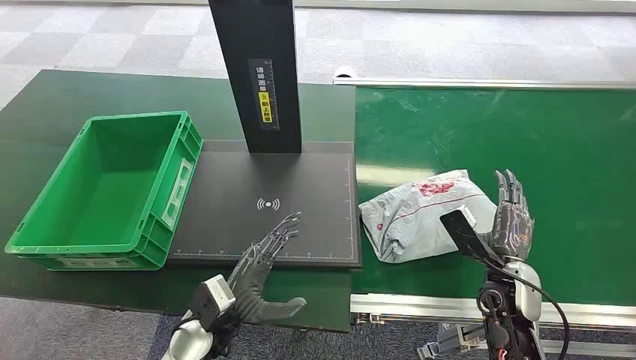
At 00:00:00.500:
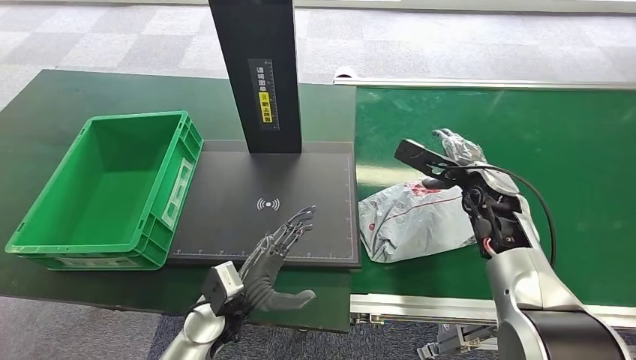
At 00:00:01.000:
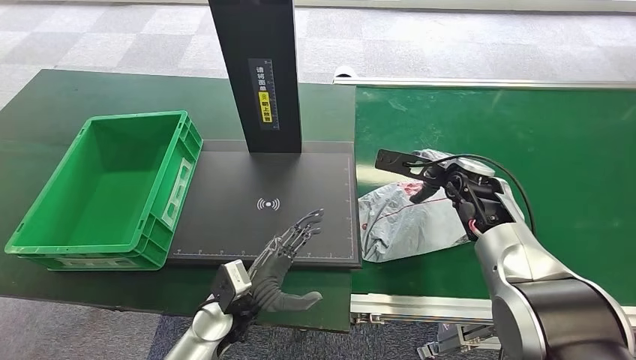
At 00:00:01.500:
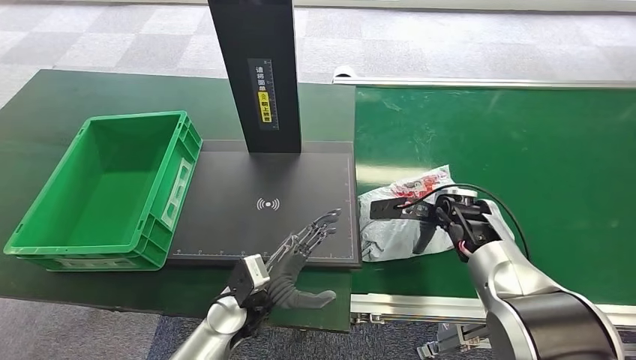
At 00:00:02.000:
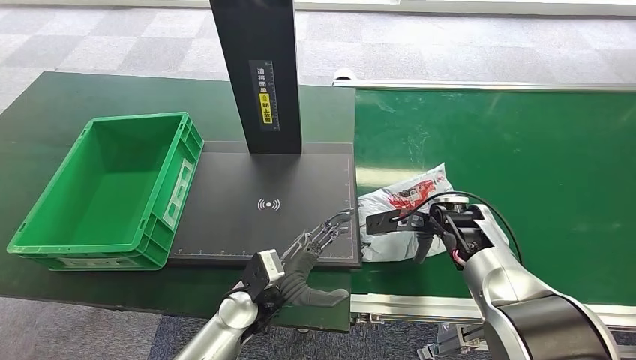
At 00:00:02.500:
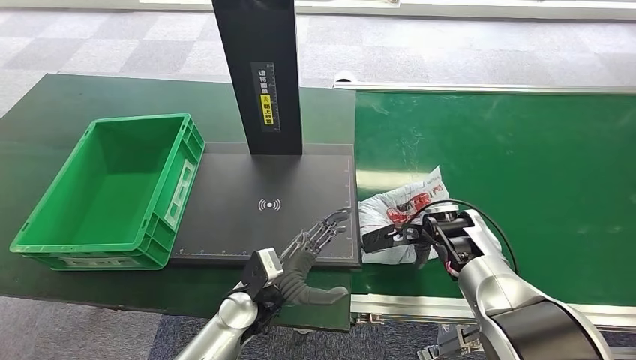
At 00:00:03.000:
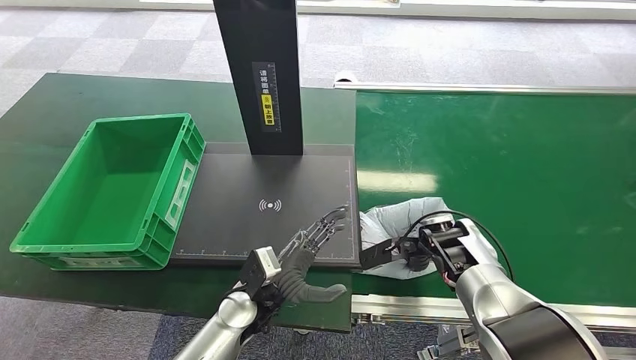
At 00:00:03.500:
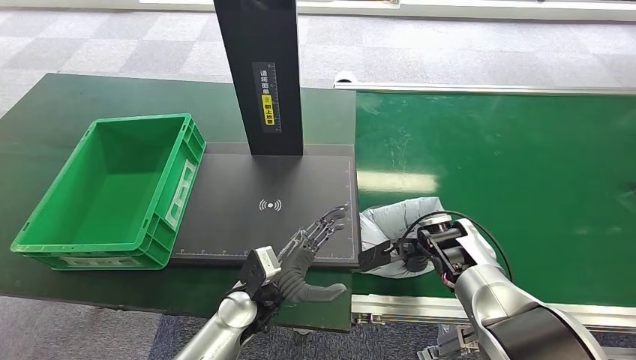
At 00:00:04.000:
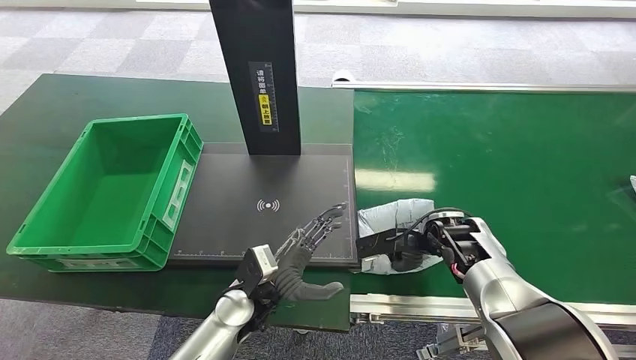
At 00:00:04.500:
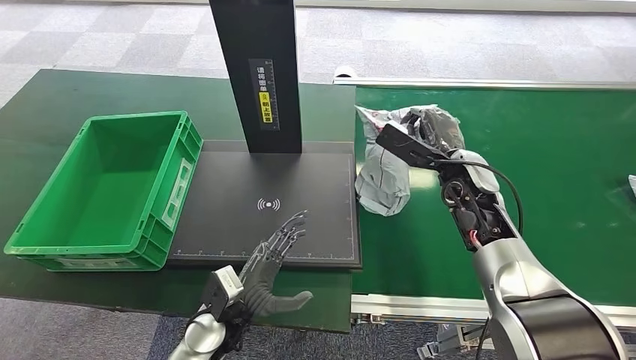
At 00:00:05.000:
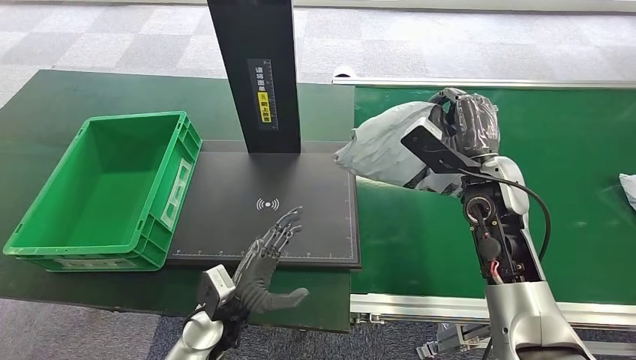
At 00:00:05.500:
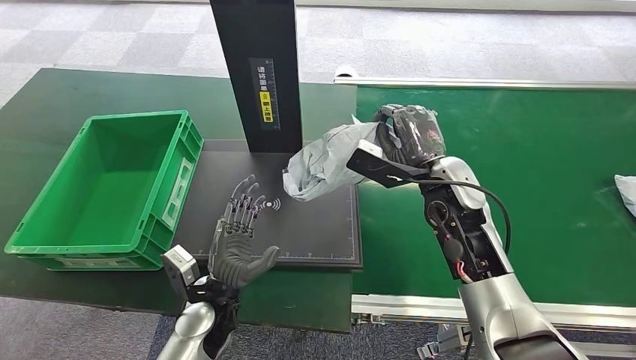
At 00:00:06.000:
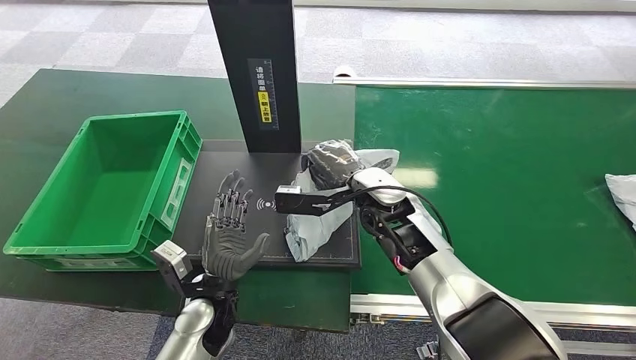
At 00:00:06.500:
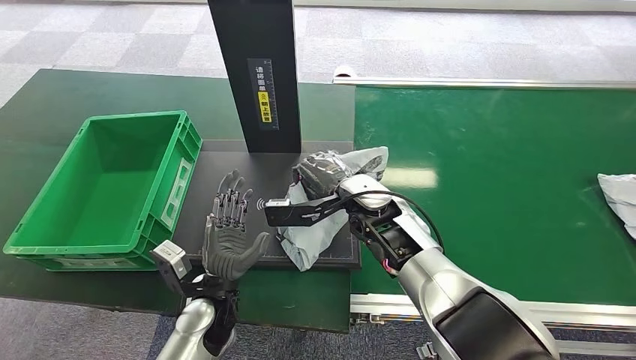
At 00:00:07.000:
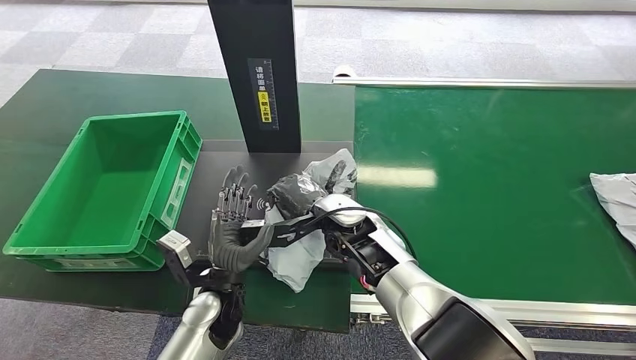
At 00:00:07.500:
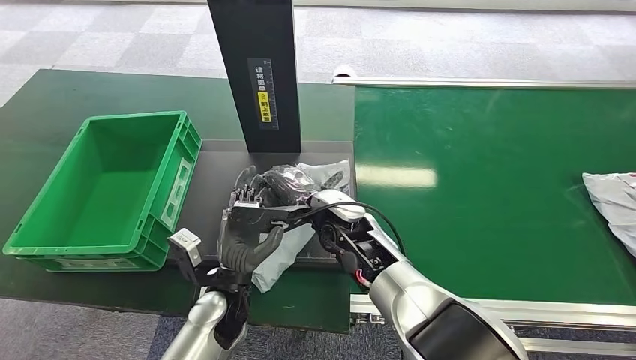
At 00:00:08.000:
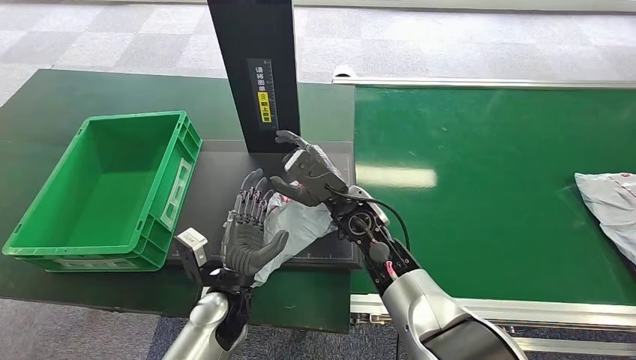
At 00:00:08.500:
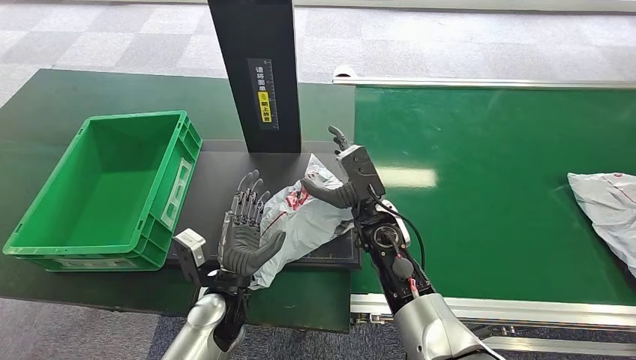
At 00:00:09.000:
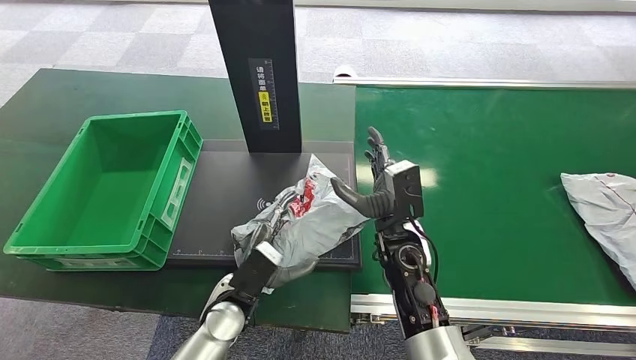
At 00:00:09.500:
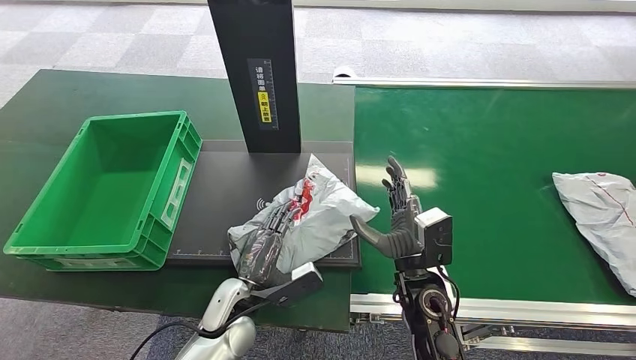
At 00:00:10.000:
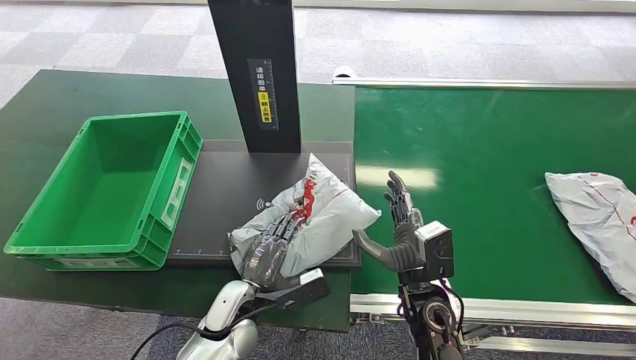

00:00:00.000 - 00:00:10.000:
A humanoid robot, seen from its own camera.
Step, 00:00:00.000 - 00:00:05.000: Pick up the package from the conveyor belt.
Step, 00:00:05.500 - 00:00:08.500: Place the package onto the inbound machine.
00:00:06.000 - 00:00:08.000: The right hand changes place by some 5 cm.
00:00:08.000 - 00:00:10.000: The right hand goes about 15 cm backward, to the right and downward.

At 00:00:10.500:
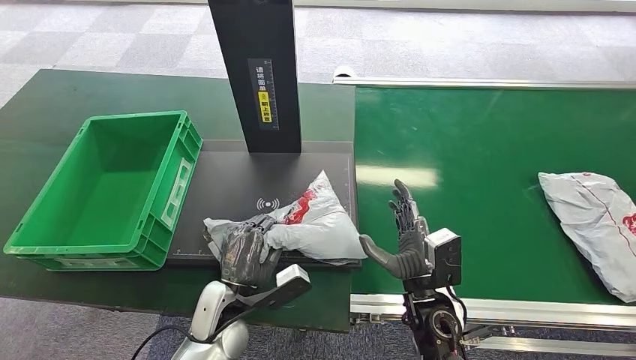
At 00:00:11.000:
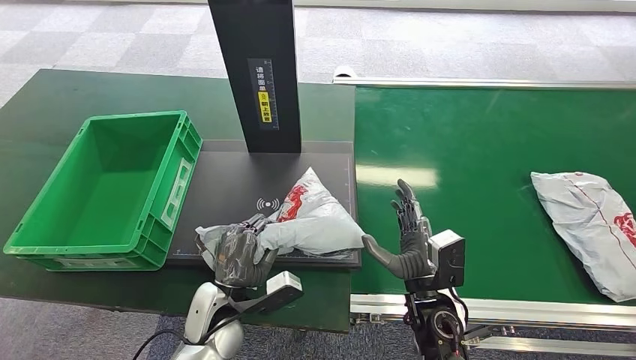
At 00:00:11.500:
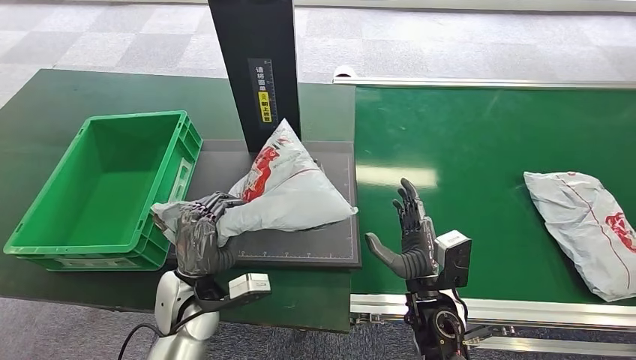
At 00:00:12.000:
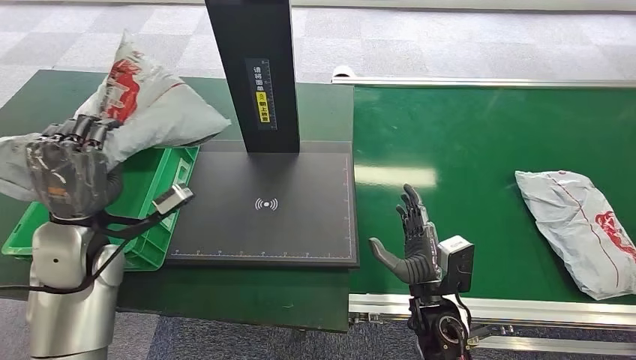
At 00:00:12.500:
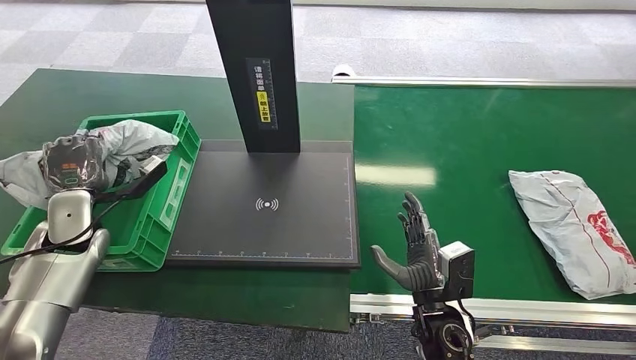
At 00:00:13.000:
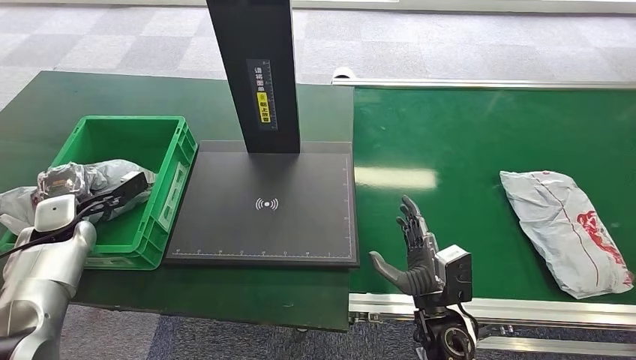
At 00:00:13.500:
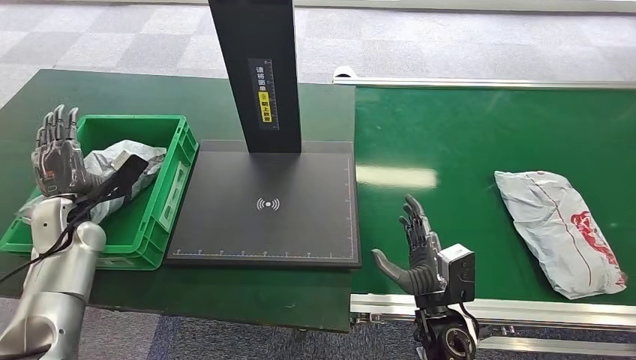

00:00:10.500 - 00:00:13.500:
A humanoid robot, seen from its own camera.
Step, 00:00:12.000 - 00:00:13.500: Place the package into the parcel locker.

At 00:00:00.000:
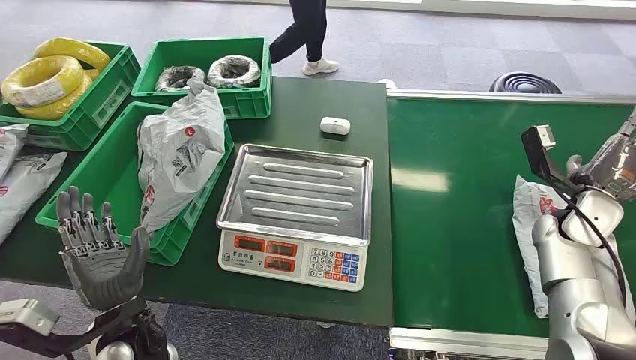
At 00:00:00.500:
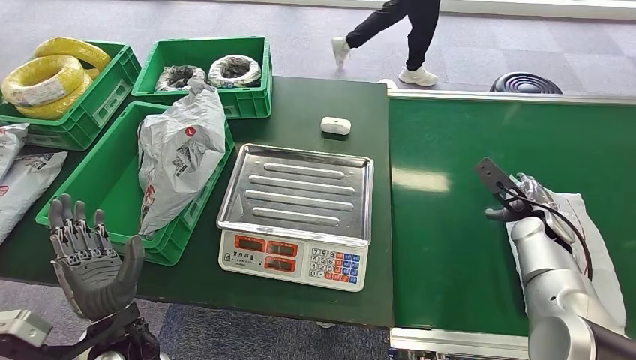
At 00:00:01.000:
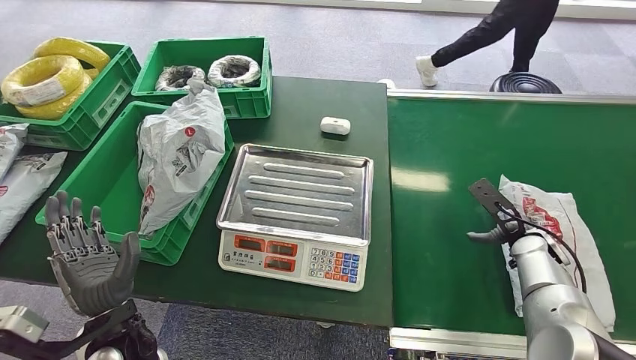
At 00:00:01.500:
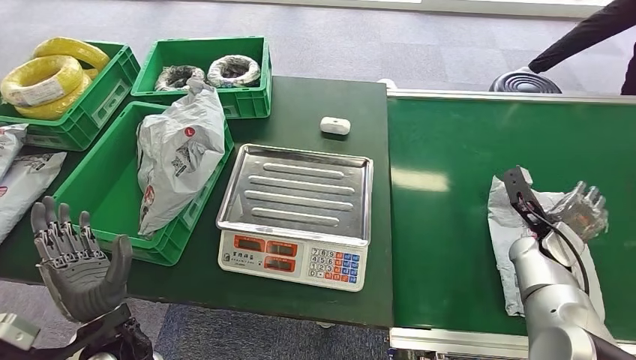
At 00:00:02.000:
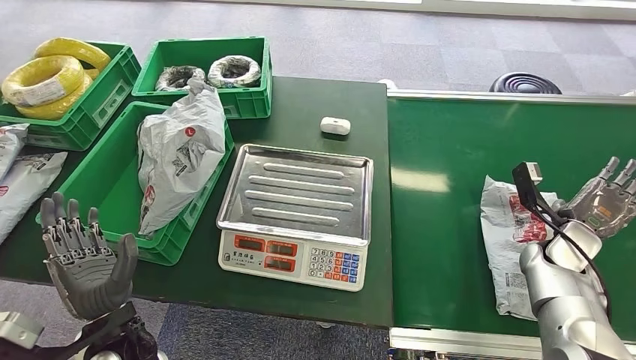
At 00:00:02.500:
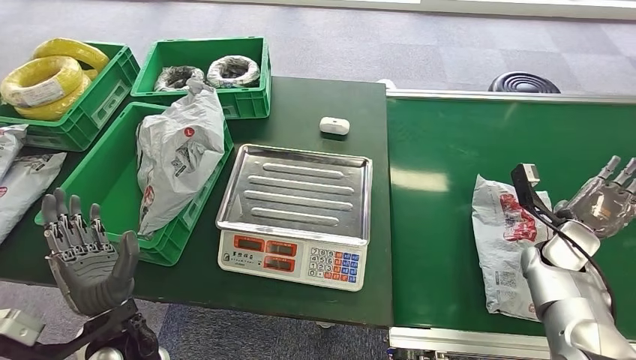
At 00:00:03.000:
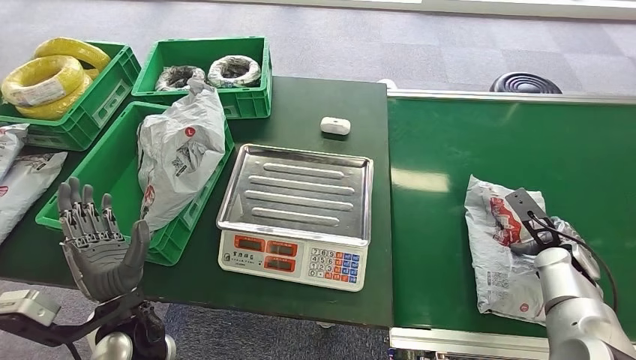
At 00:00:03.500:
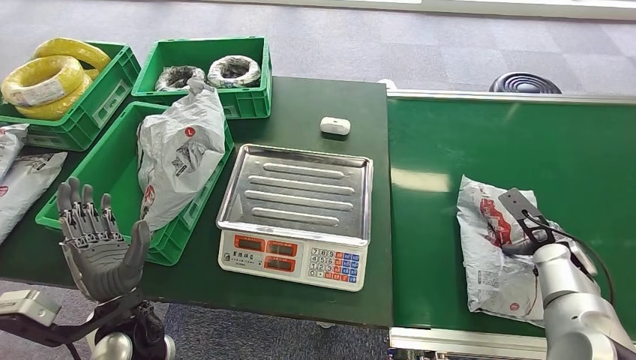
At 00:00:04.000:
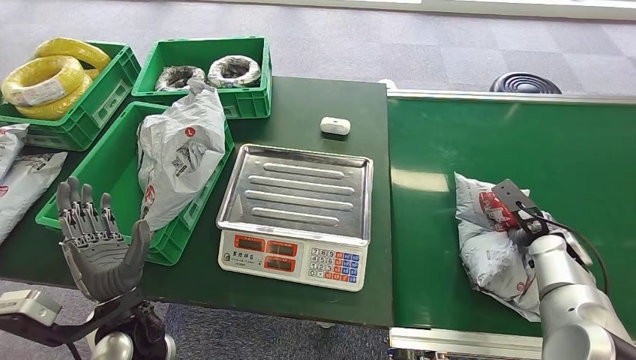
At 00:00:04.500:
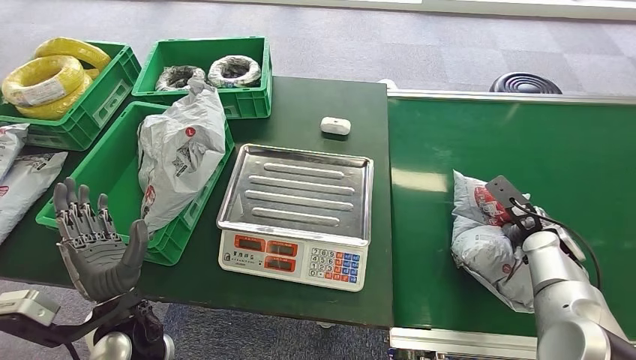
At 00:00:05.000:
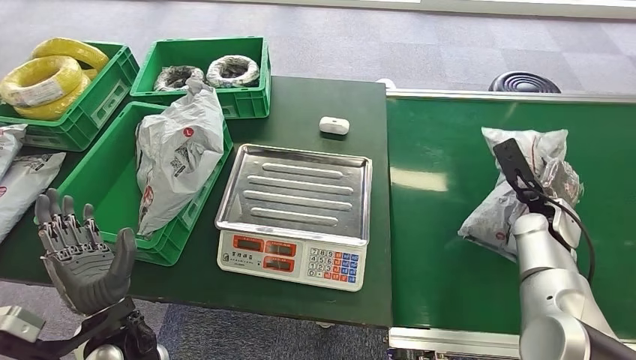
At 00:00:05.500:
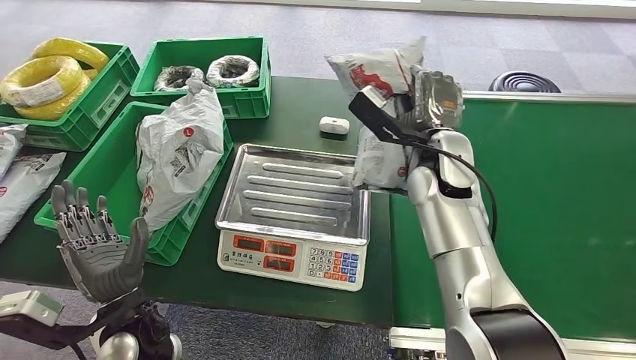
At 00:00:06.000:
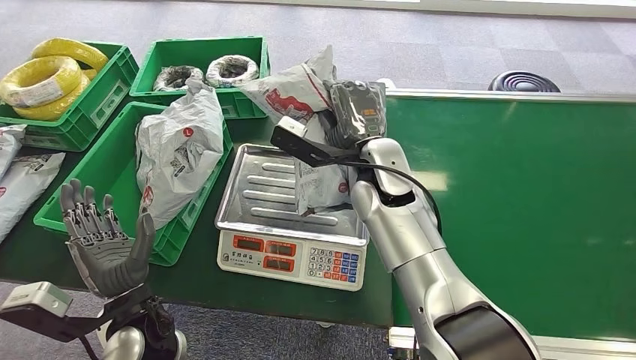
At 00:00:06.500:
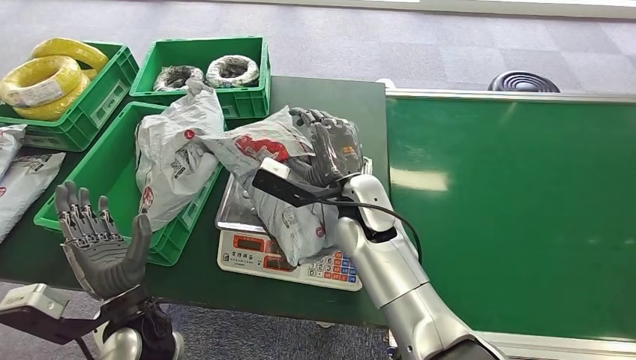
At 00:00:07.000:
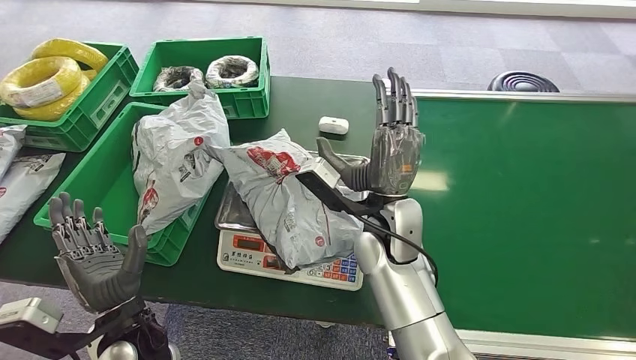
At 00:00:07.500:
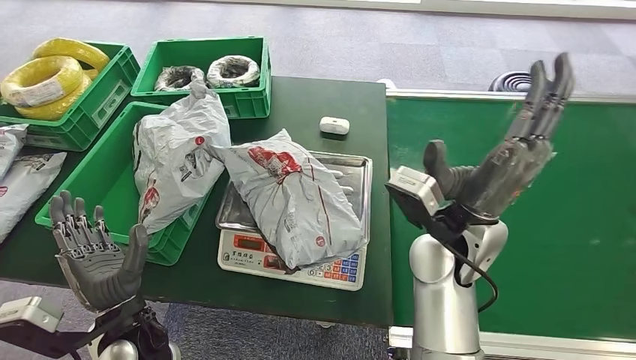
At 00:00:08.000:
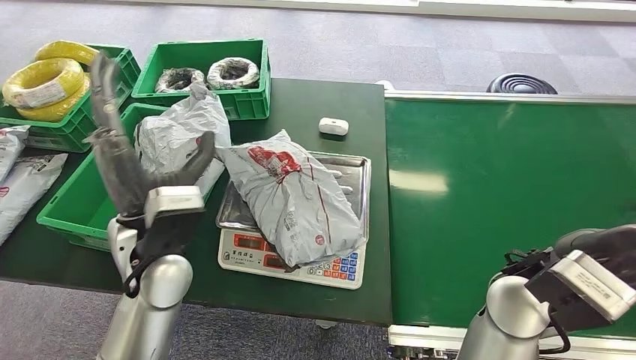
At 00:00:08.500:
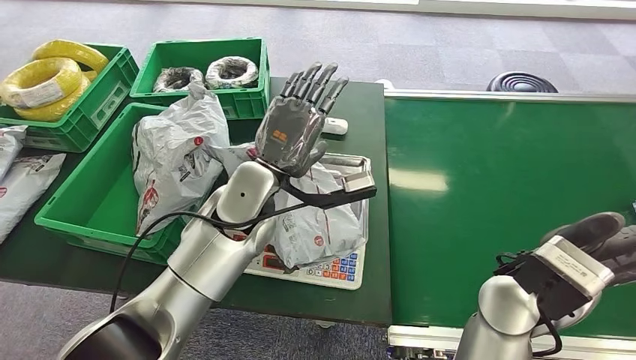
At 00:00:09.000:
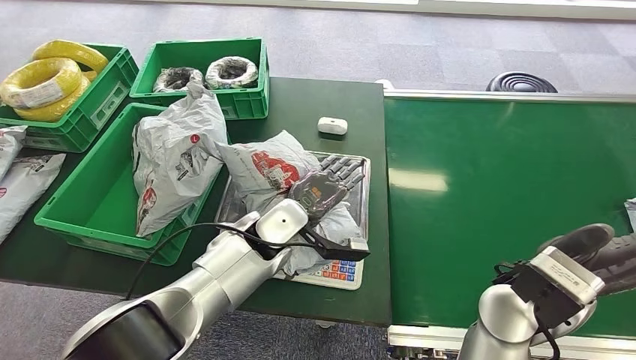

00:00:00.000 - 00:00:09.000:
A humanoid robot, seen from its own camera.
Step, 00:00:00.000 - 00:00:05.500: Pick up the package from the conveyor belt.
Step, 00:00:06.000 - 00:00:07.000: Place the package onto the inbound machine.
